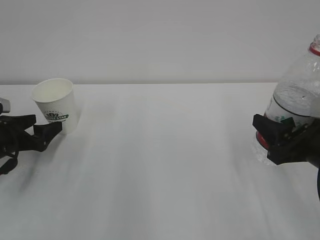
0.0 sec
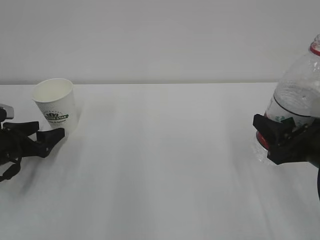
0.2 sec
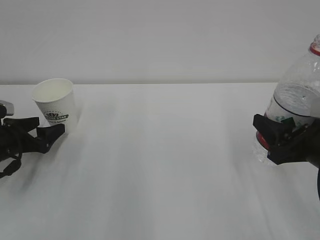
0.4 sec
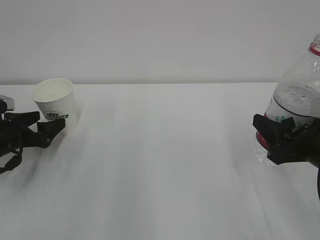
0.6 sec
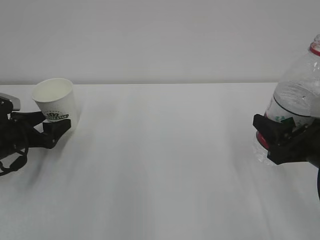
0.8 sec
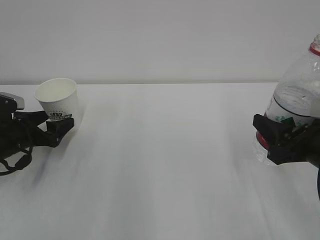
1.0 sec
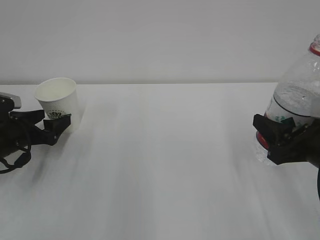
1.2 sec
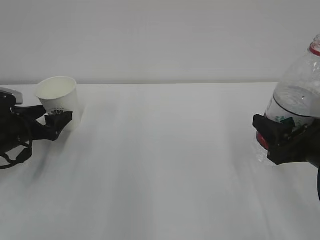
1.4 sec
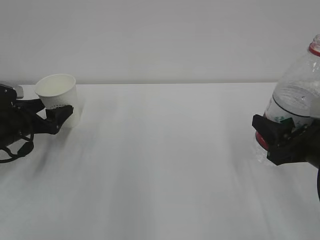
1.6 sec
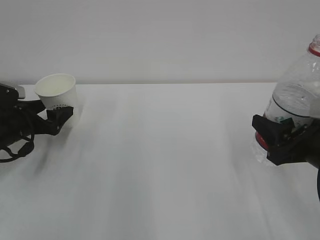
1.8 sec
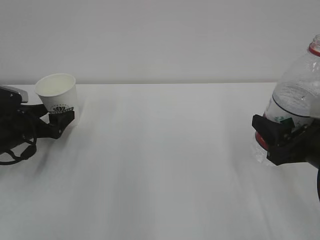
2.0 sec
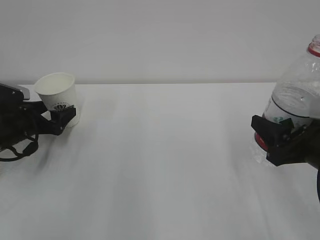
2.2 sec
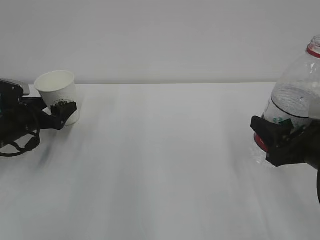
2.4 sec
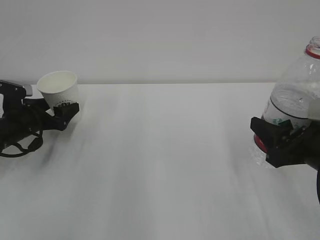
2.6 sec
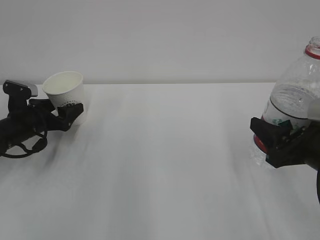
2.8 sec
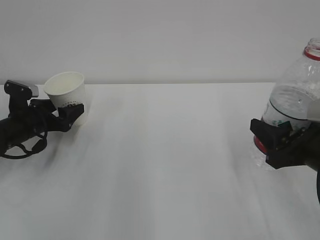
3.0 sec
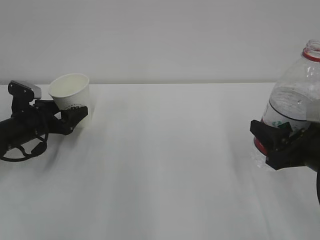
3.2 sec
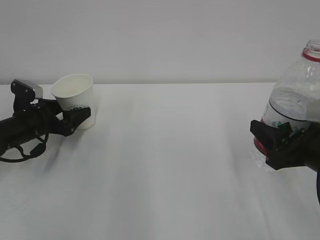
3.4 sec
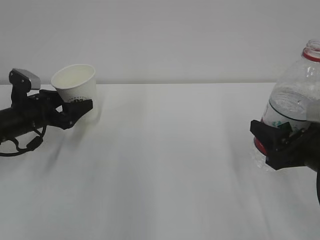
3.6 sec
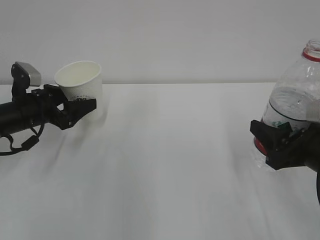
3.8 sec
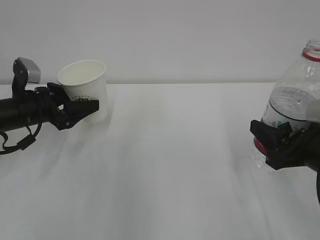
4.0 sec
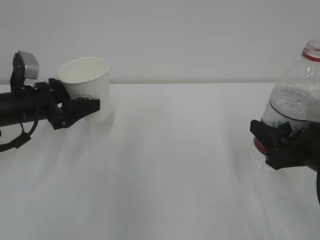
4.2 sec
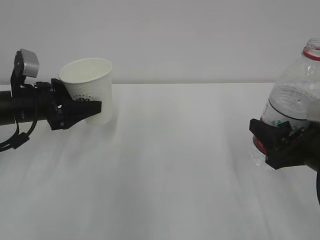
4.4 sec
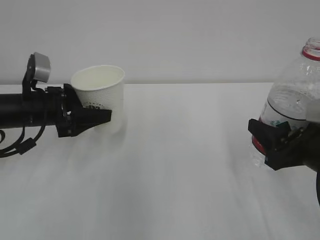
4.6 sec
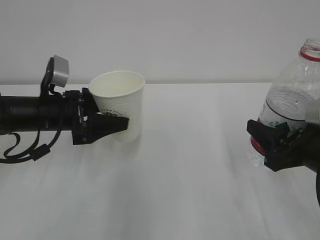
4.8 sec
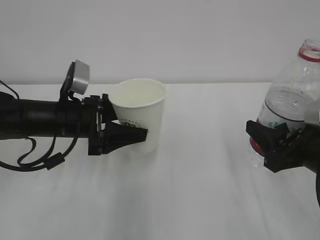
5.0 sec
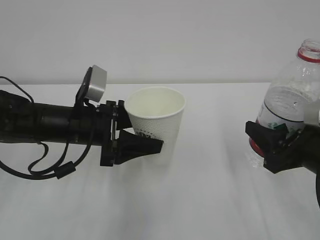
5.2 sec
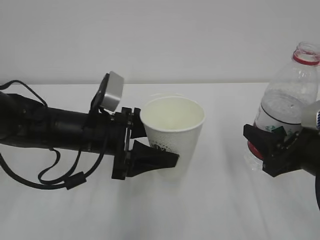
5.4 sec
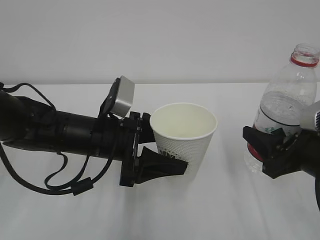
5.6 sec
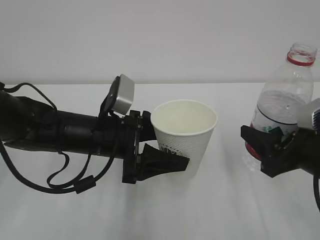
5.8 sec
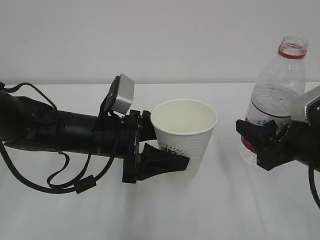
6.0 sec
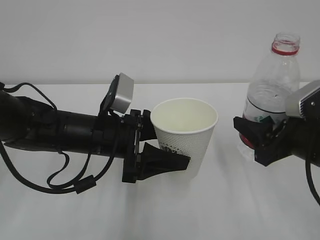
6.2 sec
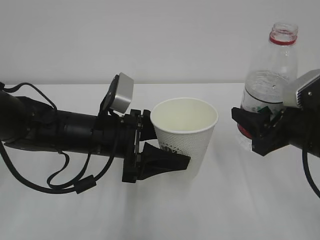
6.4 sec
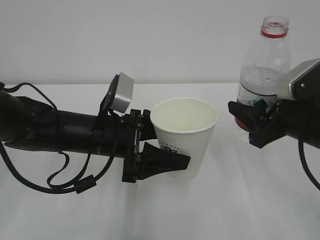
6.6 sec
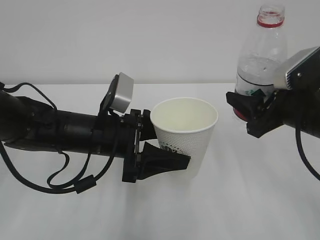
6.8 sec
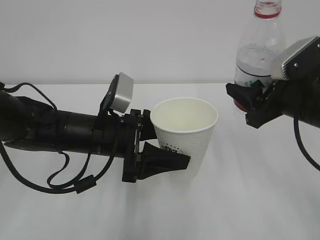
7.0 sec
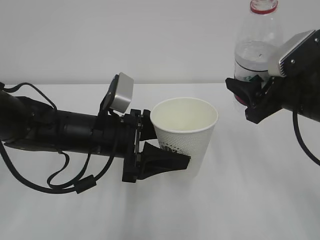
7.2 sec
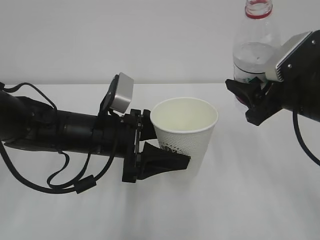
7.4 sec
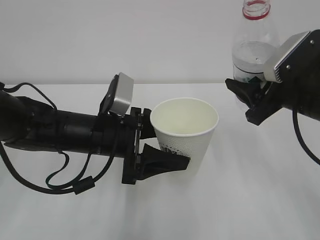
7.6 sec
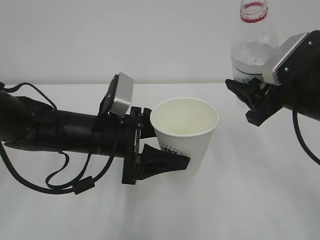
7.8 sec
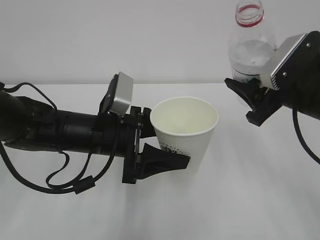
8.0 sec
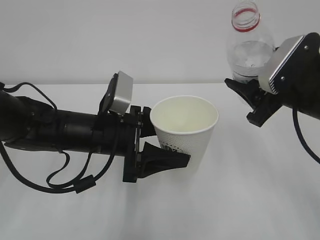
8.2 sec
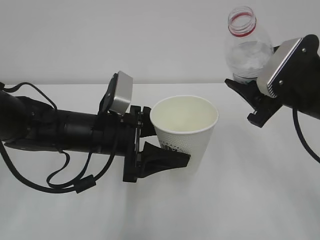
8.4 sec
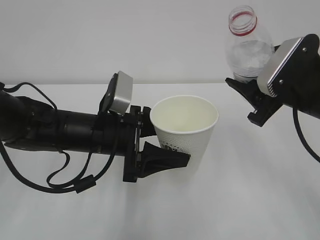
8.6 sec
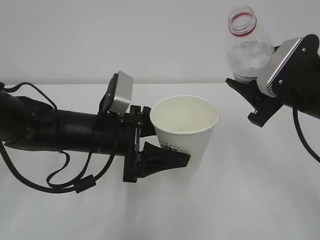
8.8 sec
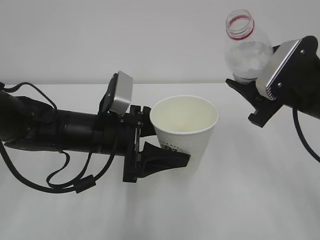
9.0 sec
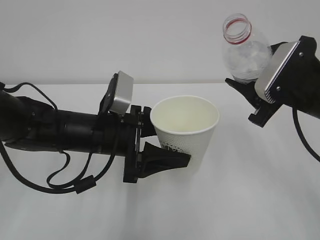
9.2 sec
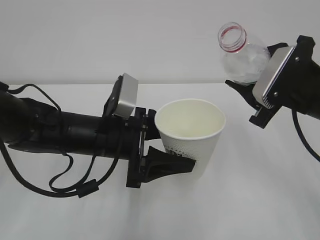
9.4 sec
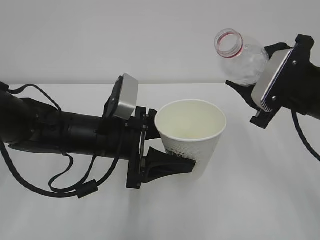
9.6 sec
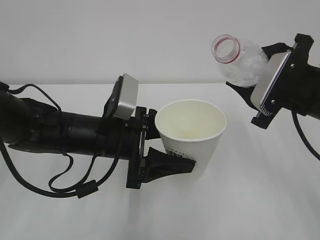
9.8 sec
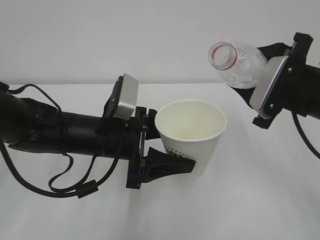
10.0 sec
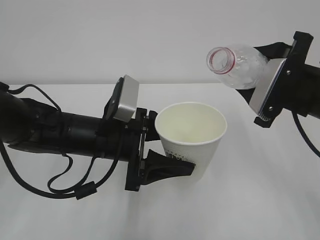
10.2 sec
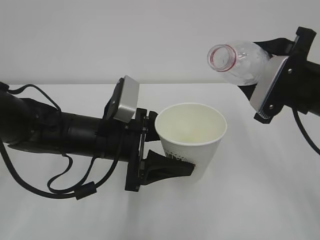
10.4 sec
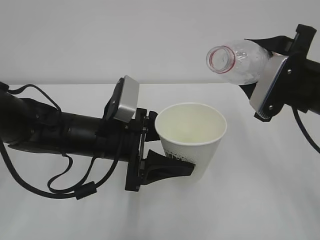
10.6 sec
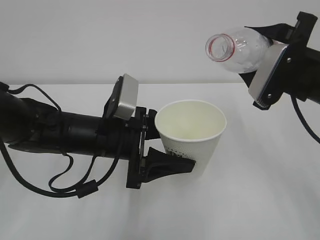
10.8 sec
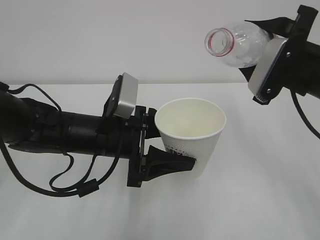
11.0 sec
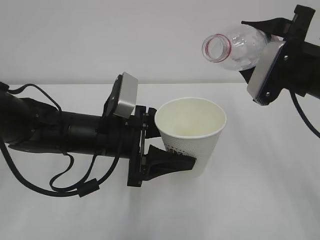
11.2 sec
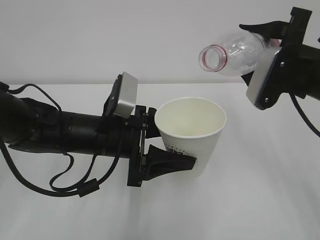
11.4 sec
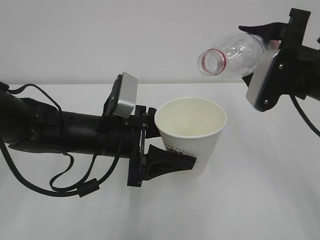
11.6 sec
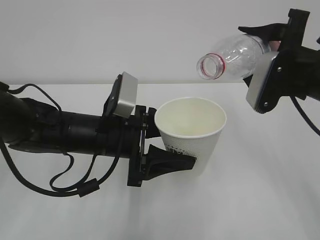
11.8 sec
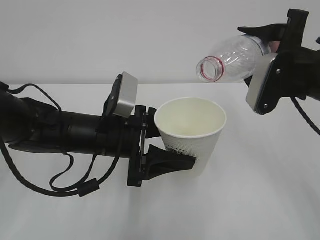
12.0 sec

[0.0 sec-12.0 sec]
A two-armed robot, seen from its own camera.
0.0 sec to 1.6 sec: The grippers move only a little.
1.6 sec to 3.0 sec: The left gripper closes up.
3.0 sec to 4.4 sec: The left gripper goes some 10 cm upward.
4.4 sec to 6.0 sec: The left gripper heads to the right and backward, covering some 15 cm.
6.0 sec to 7.6 sec: The right gripper goes roughly 10 cm forward and upward.
7.6 sec to 9.0 sec: The grippers make only small movements.
10.4 sec to 12.0 sec: There are only small adjustments of the grippers.

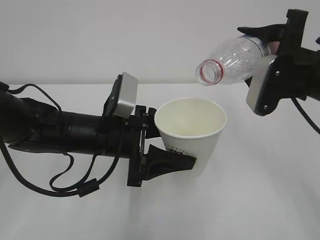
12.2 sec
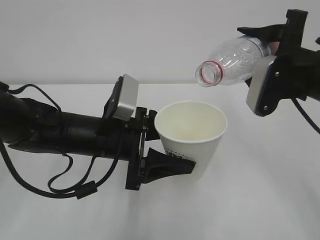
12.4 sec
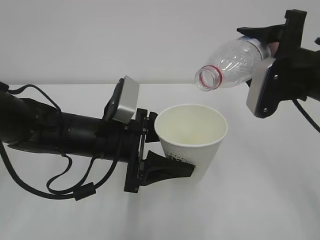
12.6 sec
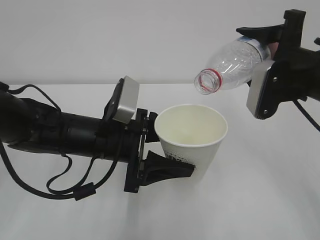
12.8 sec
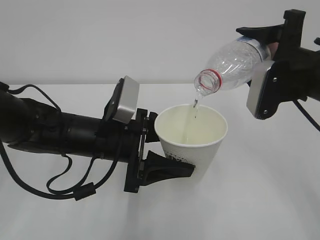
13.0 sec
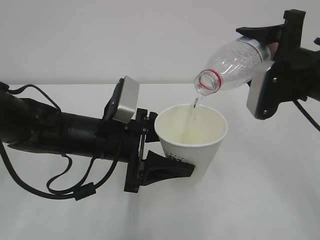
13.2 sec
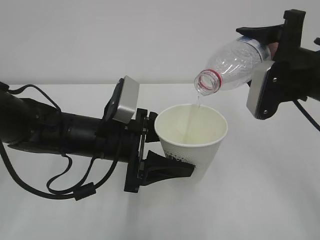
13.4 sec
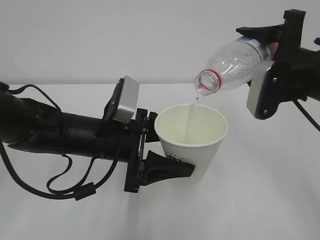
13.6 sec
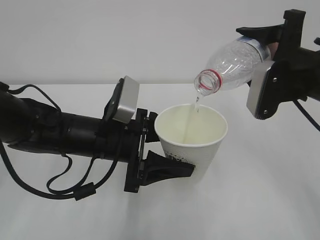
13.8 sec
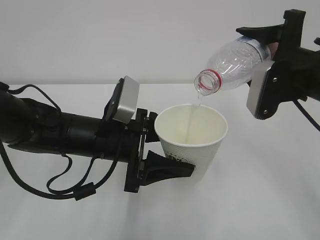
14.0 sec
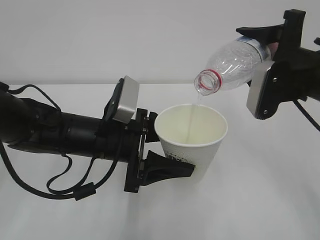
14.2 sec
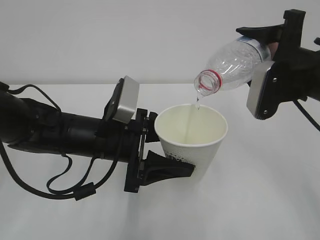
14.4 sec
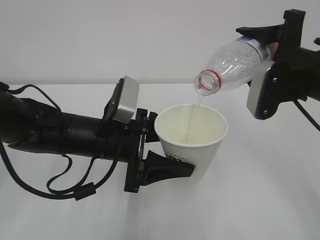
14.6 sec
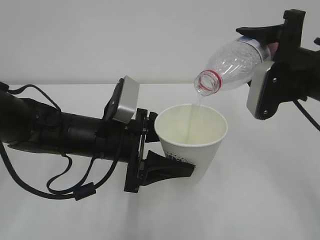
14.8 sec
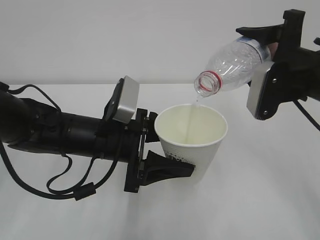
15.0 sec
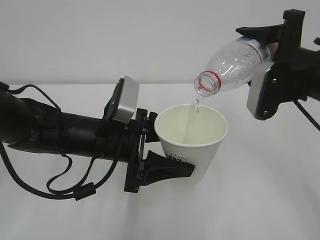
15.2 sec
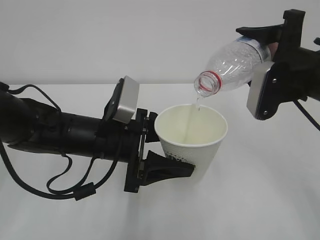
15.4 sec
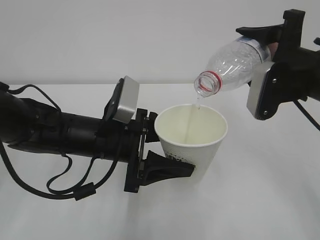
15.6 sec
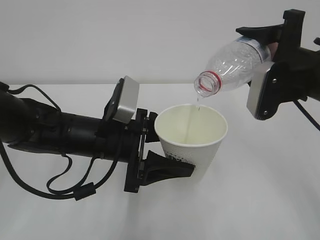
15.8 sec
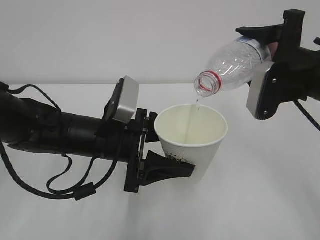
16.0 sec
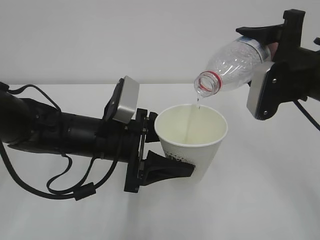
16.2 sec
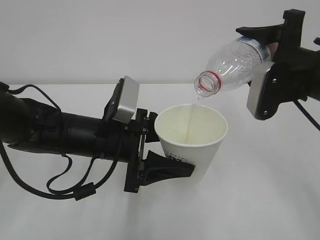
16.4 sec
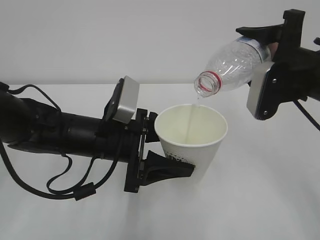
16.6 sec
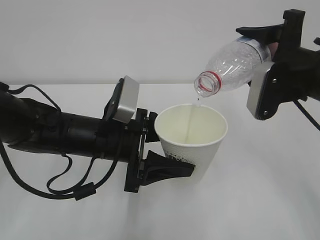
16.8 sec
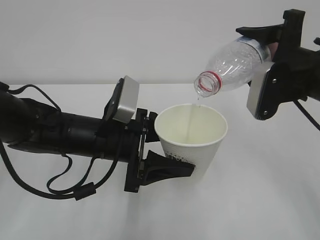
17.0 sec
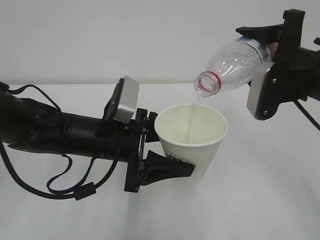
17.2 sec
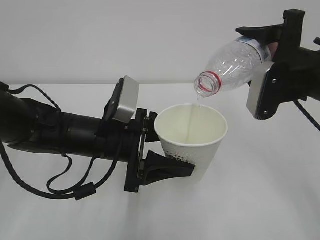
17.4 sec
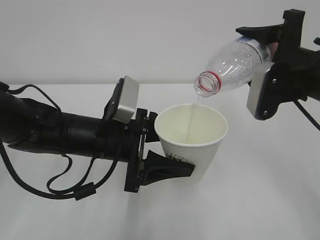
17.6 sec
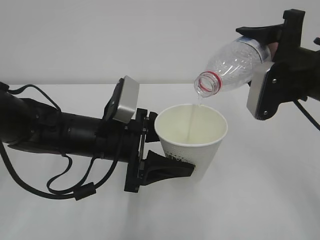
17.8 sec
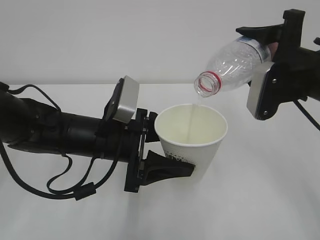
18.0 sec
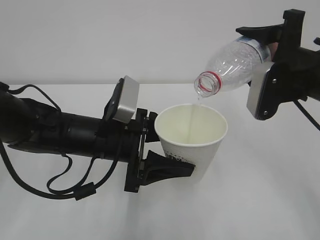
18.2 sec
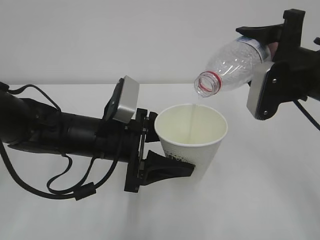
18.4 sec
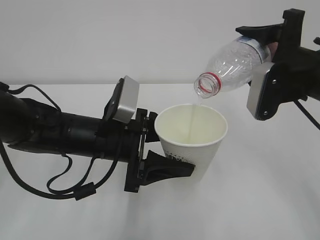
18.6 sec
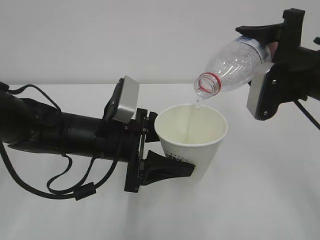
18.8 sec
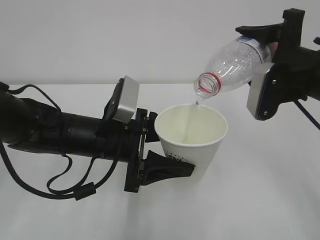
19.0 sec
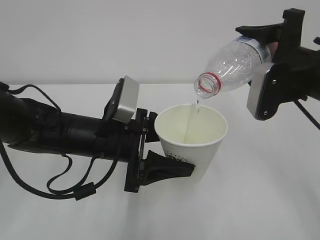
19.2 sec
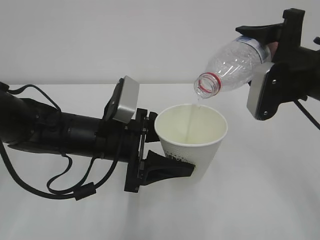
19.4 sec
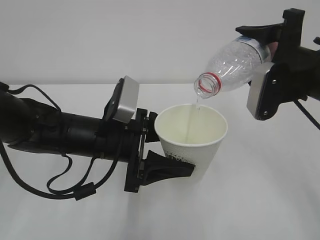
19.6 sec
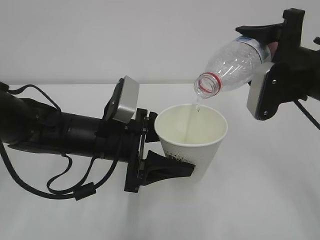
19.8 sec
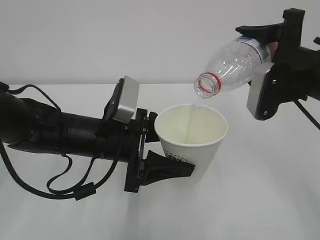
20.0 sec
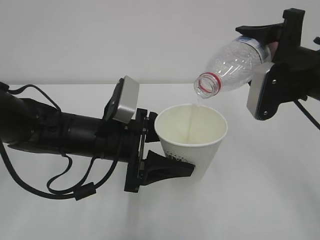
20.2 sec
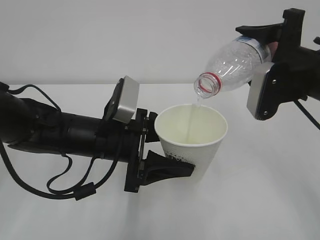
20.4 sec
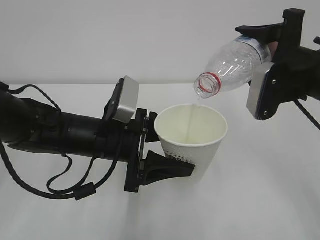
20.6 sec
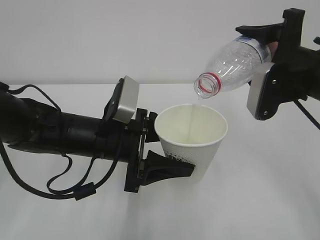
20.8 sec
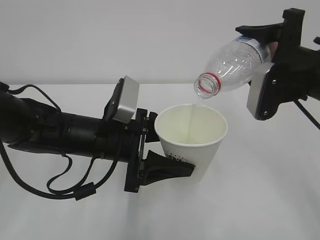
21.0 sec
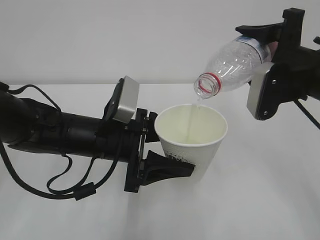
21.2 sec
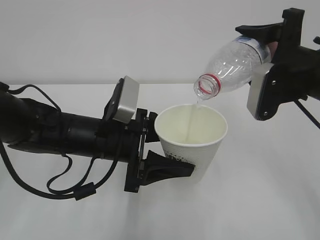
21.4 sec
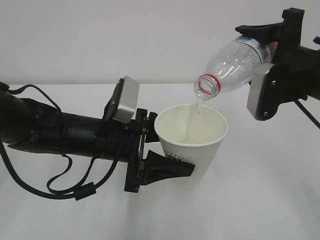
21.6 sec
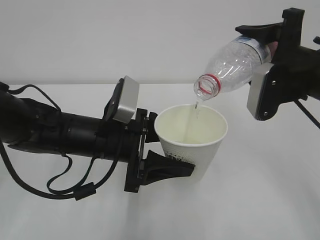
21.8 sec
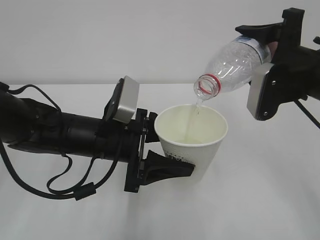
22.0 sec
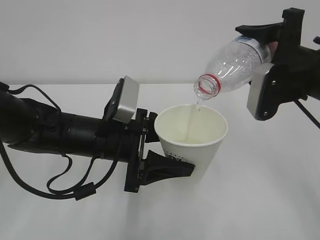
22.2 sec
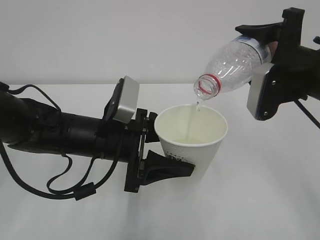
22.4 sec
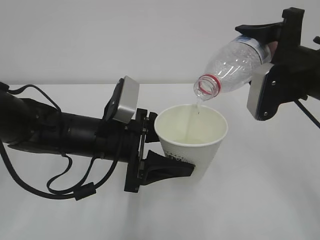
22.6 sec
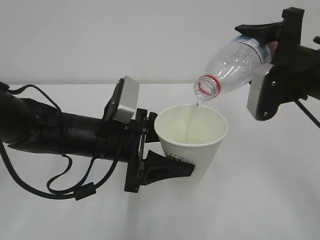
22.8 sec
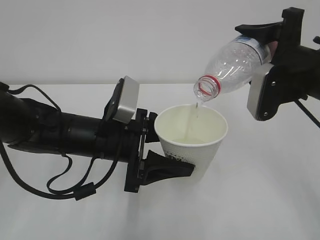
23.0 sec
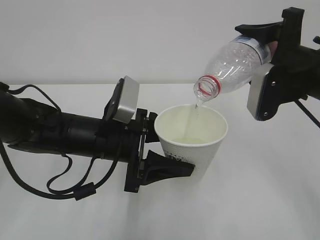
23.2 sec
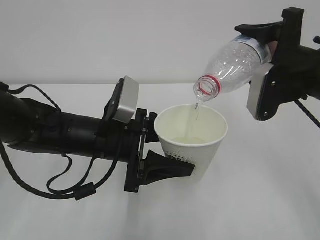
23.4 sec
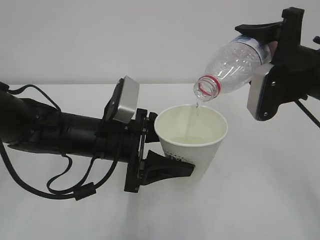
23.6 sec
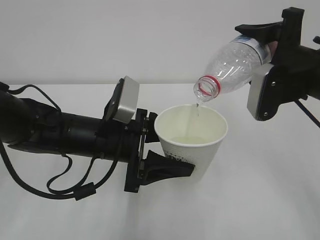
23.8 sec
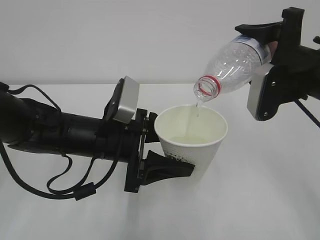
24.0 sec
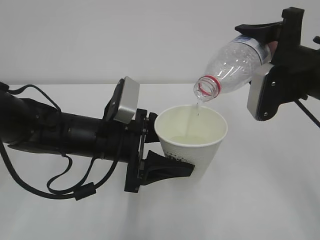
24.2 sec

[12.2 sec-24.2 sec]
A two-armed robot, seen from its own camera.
12.2 sec to 13.8 sec: The grippers stay close to where they were, moving slightly.
13.8 sec to 22.6 sec: The two grippers keep their place.
22.6 sec to 24.2 sec: Both grippers stay put.
